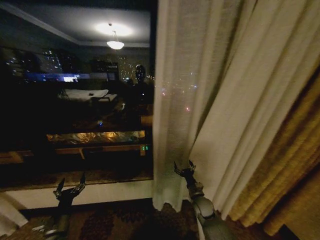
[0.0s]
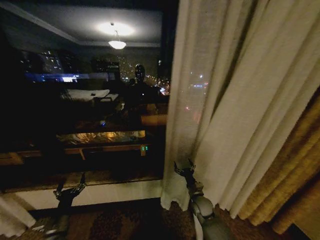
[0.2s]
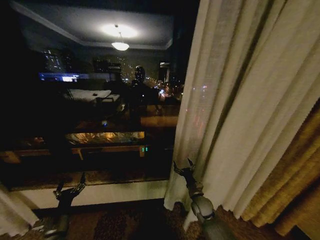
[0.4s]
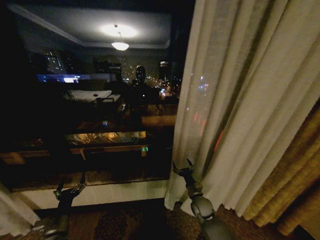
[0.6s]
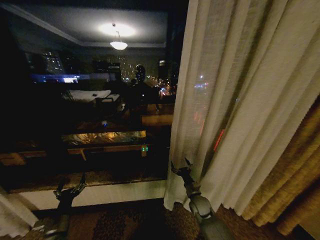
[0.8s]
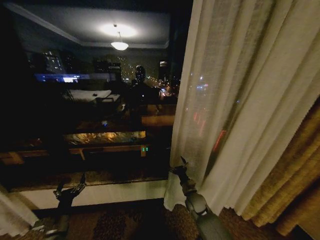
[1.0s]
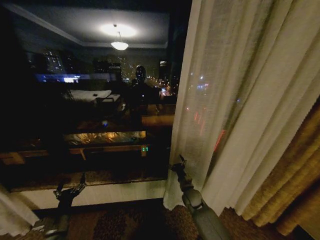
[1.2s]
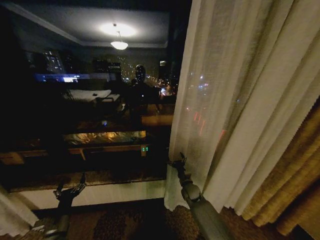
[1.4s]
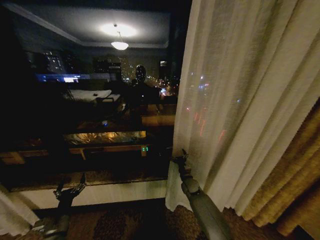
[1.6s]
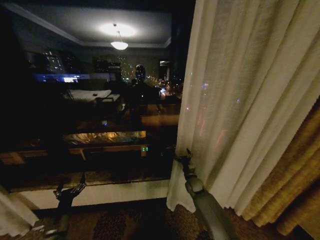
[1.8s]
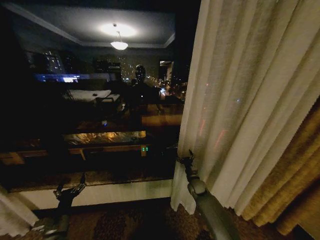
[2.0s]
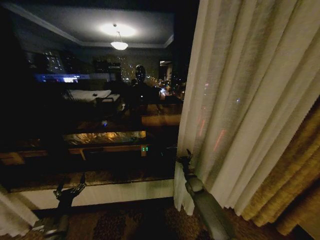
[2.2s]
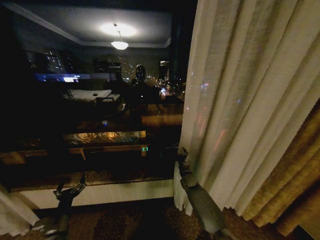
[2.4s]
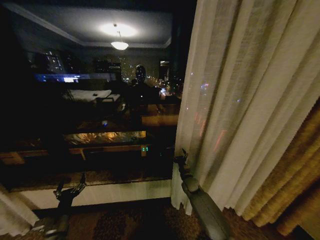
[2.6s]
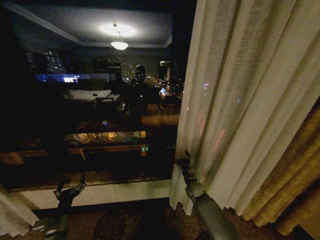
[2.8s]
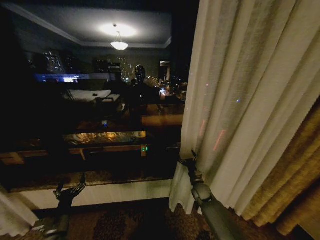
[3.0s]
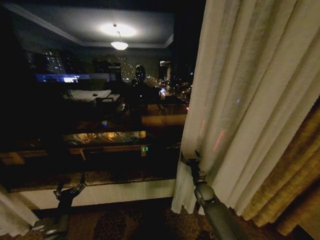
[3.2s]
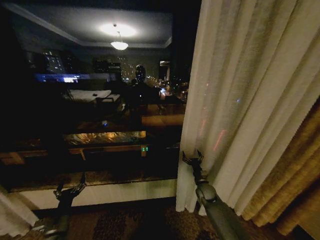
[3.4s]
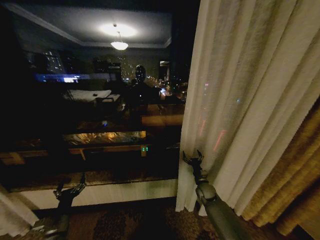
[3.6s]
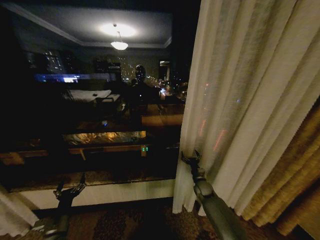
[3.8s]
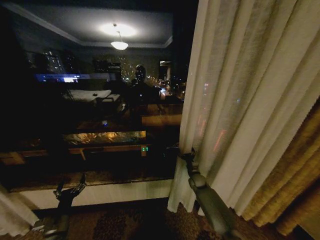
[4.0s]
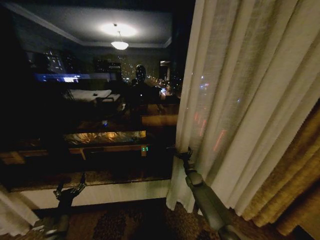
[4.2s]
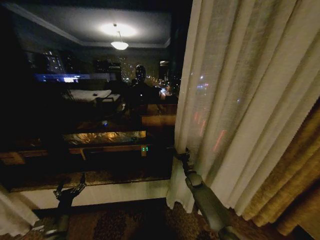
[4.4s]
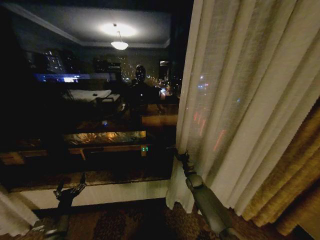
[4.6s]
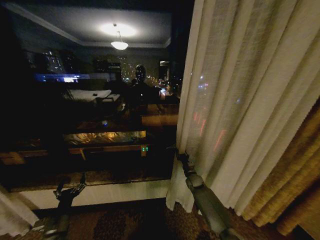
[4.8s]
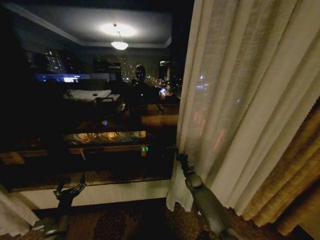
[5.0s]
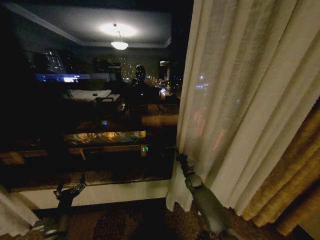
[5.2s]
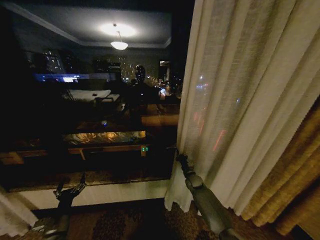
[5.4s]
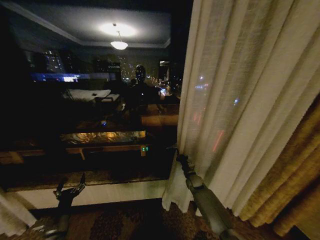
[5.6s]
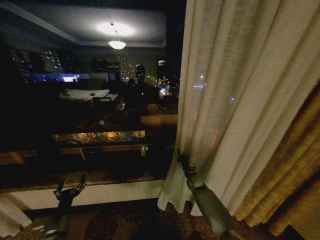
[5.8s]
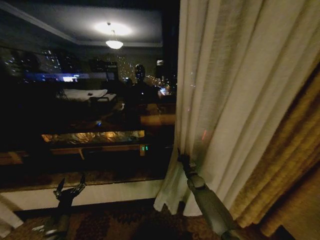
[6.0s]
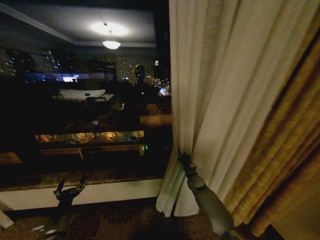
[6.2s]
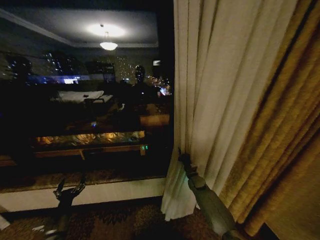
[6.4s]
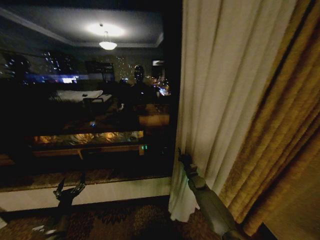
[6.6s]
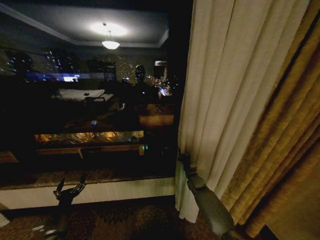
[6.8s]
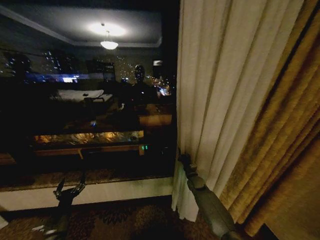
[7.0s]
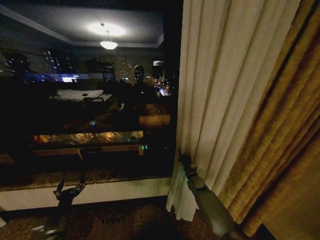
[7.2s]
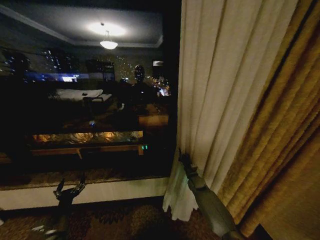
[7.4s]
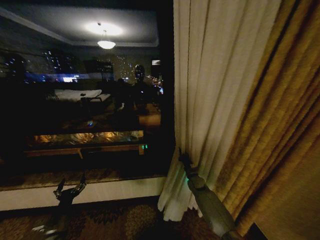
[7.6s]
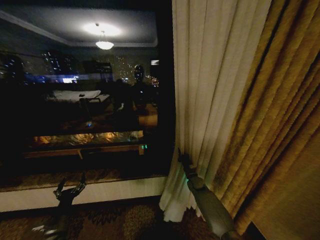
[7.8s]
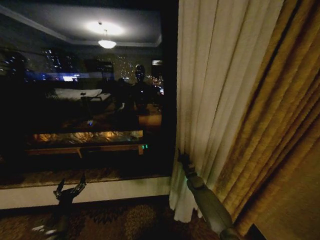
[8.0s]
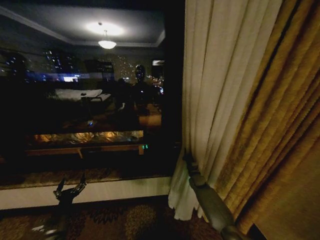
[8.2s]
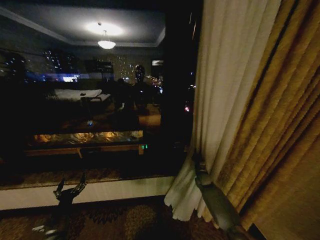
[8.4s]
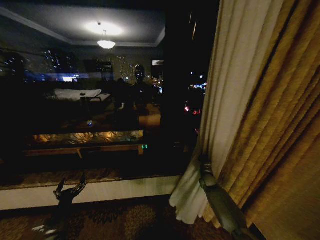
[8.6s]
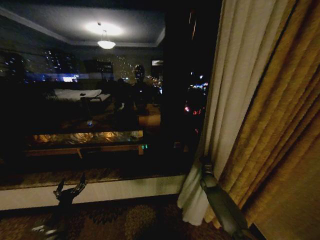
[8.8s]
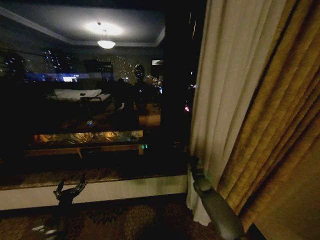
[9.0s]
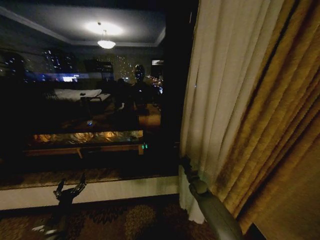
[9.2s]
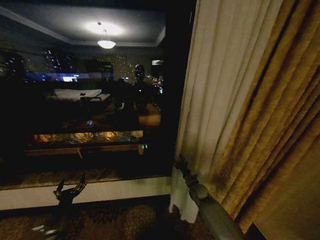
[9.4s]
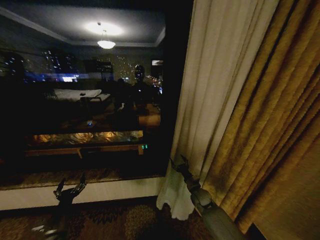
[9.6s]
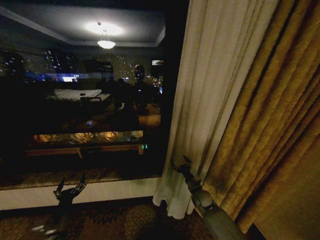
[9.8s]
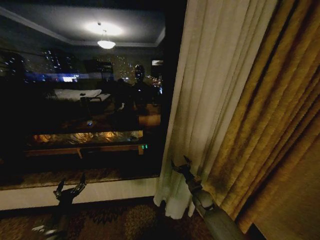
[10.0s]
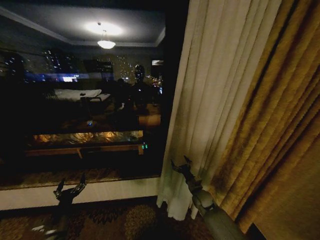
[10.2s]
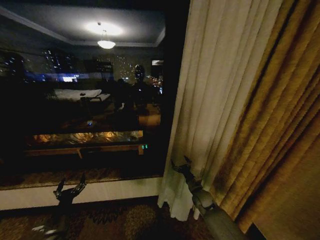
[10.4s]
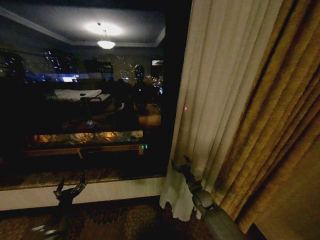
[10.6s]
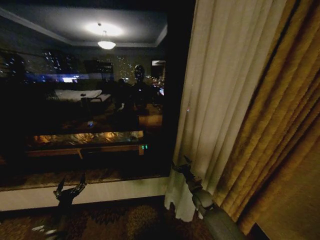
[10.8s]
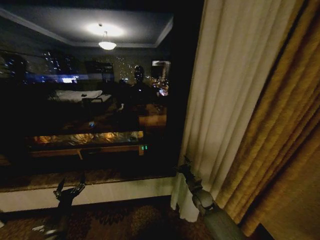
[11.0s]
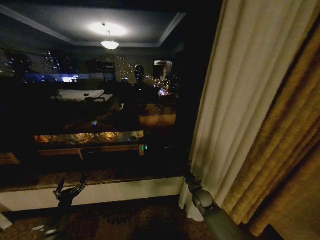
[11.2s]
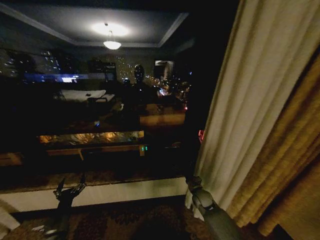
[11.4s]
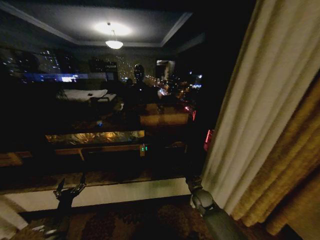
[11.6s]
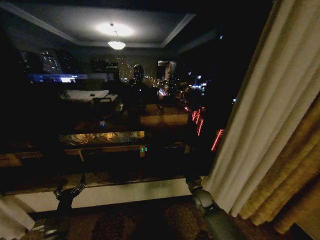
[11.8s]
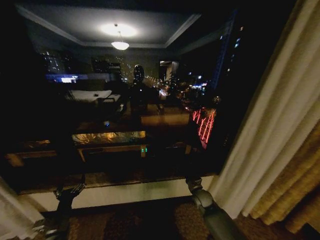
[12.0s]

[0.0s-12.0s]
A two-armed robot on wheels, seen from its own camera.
Task of the whole recording: Open the curtains by pulling them apart, changing their state from closed to fully open.
0.0s to 1.6s: The right gripper travels forward by approximately 10 cm.
1.6s to 3.0s: The right gripper changes place by about 5 cm.
3.0s to 4.4s: The right gripper is displaced forward by roughly 5 cm.
4.4s to 6.0s: The right gripper closes.
9.0s to 10.4s: The right gripper heads backward and to the left, covering some 10 cm, and opens its fingers.

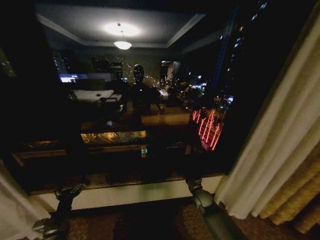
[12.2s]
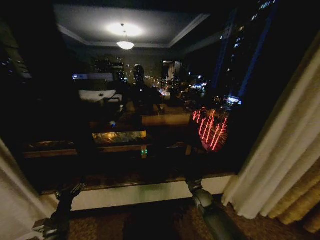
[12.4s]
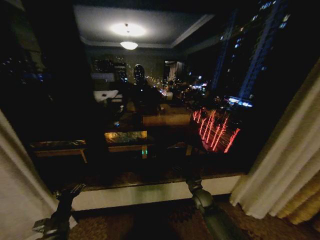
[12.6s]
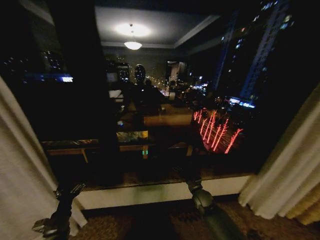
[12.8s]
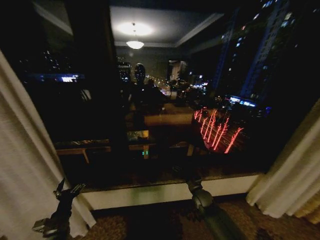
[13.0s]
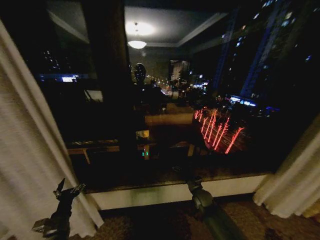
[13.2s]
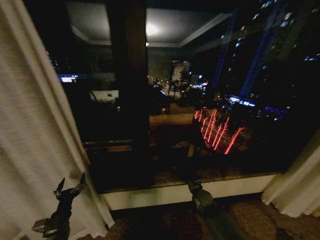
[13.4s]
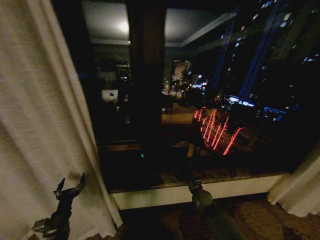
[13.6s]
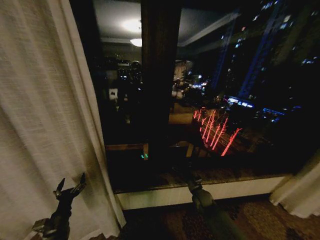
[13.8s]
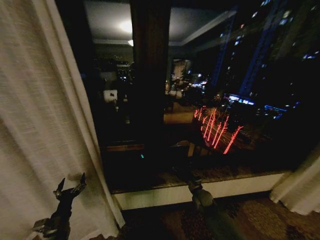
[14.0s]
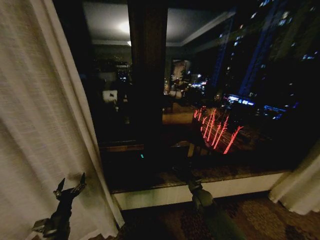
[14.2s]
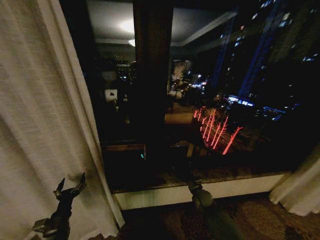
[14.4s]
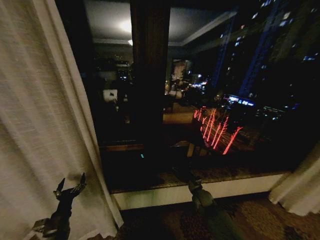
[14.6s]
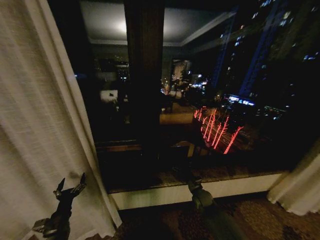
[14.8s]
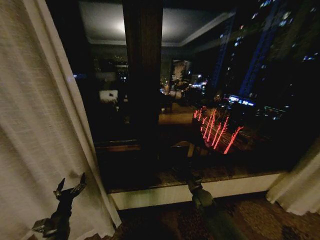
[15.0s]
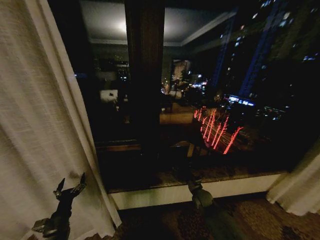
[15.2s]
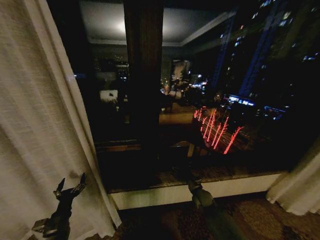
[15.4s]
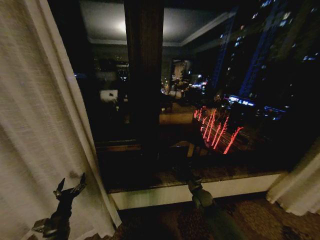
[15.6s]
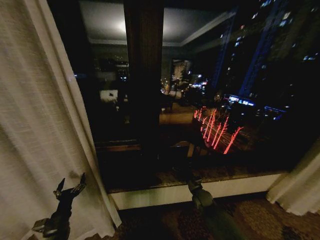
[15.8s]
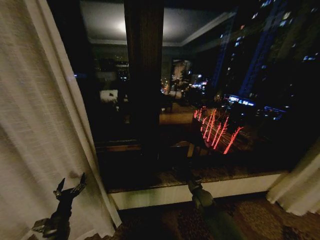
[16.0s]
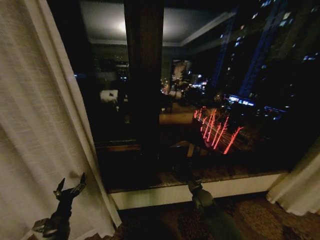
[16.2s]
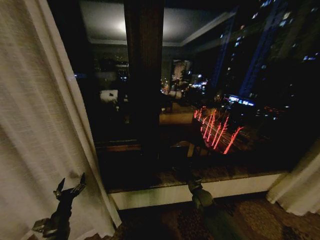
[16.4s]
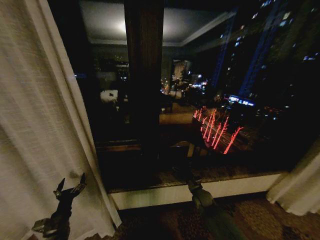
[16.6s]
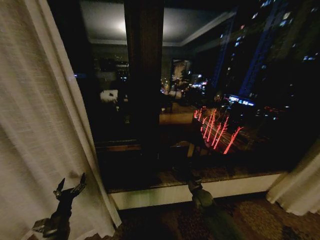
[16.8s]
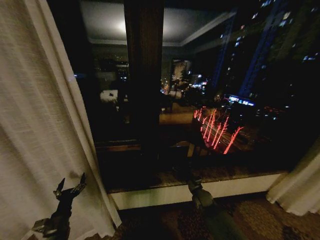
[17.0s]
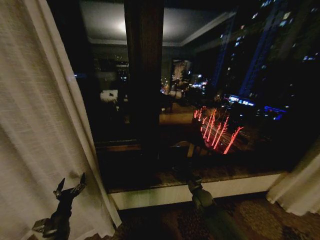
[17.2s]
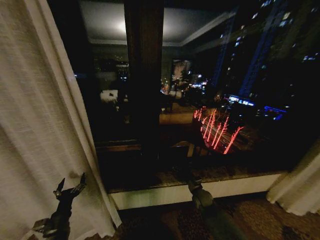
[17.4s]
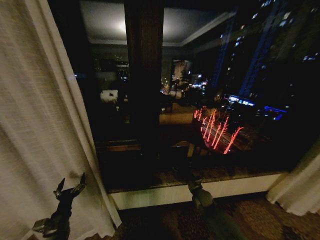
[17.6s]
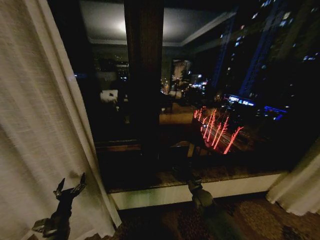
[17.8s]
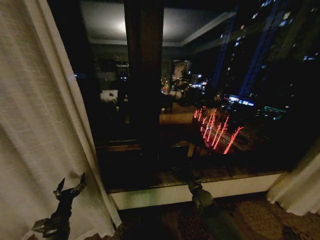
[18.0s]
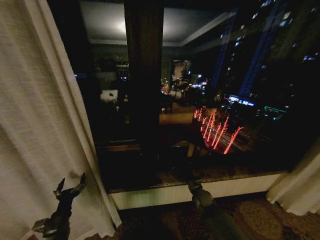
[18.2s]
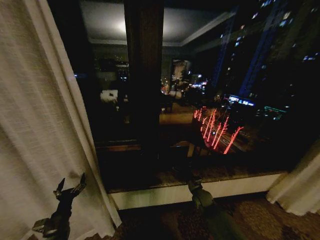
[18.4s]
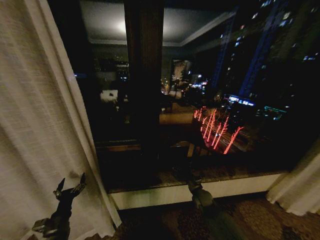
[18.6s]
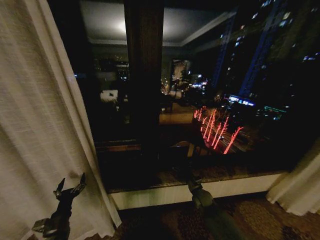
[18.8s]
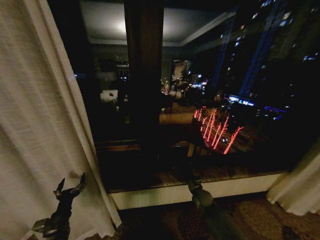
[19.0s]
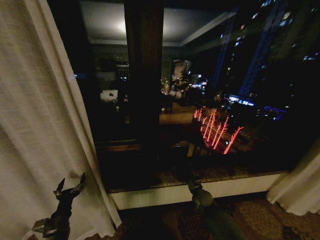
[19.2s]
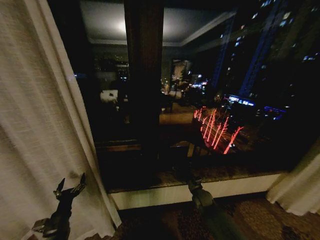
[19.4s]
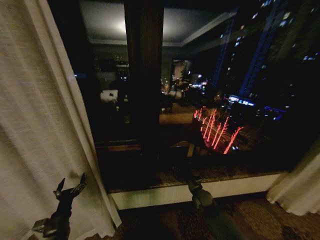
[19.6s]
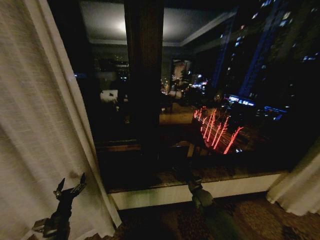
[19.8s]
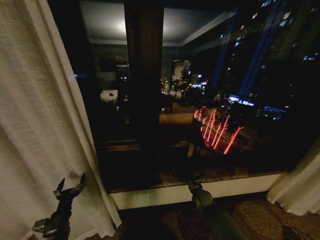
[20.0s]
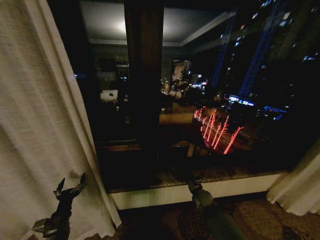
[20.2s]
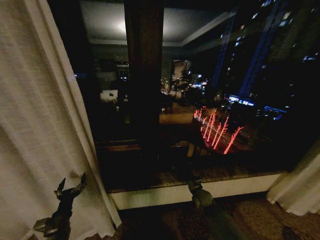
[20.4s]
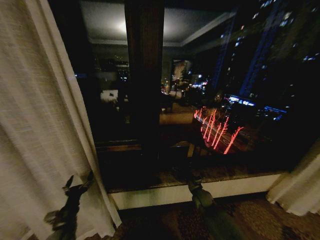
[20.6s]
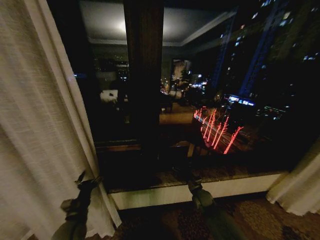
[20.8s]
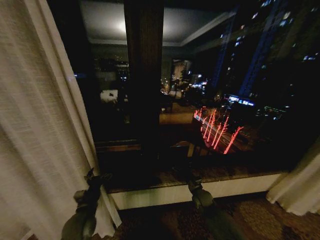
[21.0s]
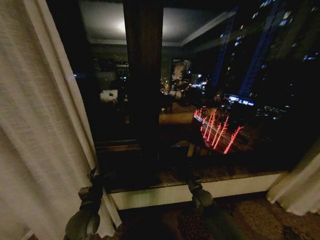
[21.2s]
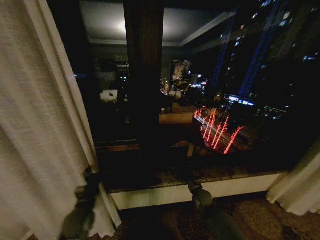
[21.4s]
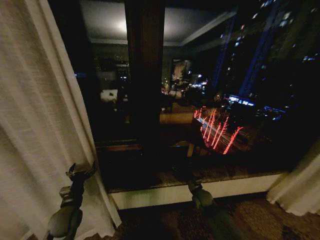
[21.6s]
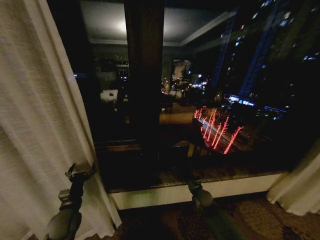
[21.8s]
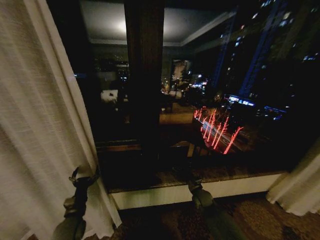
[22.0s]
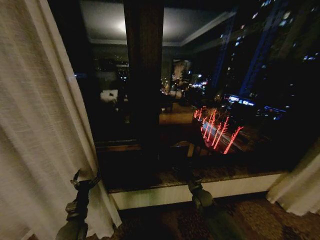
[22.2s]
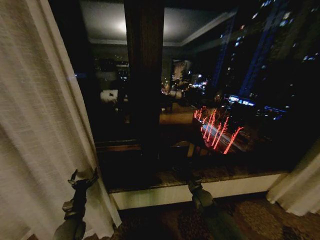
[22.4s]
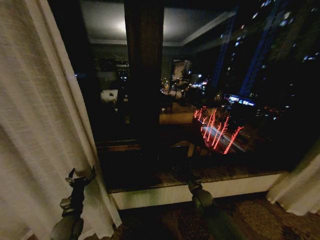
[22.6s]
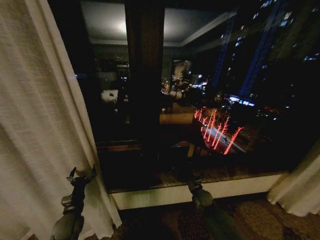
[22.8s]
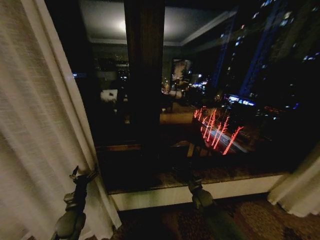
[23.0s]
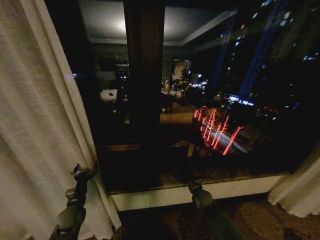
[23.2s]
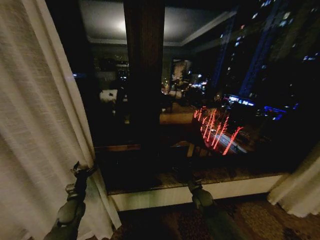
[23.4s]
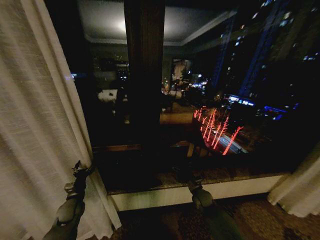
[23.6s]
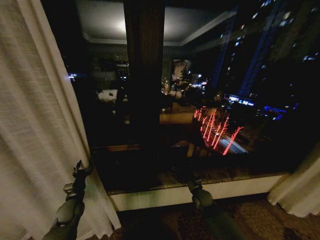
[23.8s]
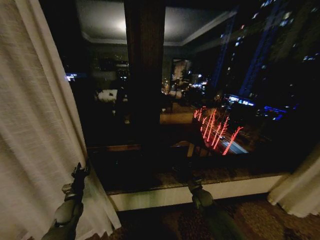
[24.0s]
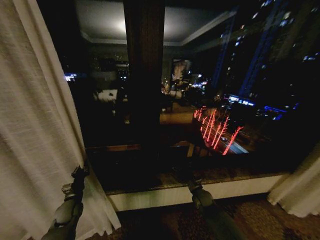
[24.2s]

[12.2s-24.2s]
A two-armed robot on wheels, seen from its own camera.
Task of the whole recording: Open the curtains by pulling them apart, changing their state from closed to fully open.
13.8s to 19.8s: Both grippers stay put.
19.8s to 21.2s: The left gripper goes approximately 15 cm to the right, upward and forward.
21.2s to 22.6s: The left gripper goes approximately 10 cm to the left and downward.
22.6s to 24.2s: The left gripper moves forward, some 5 cm, and closes.
